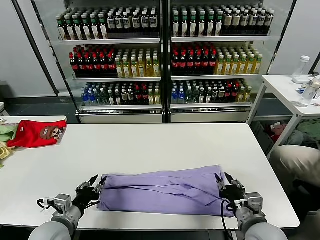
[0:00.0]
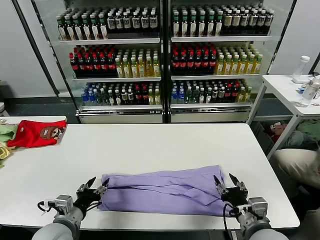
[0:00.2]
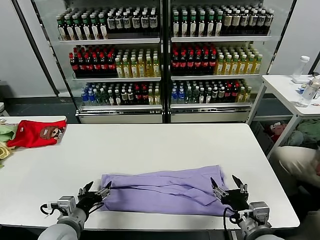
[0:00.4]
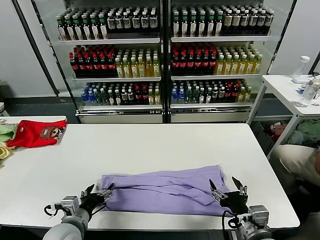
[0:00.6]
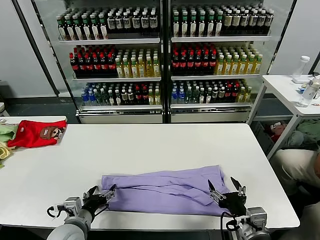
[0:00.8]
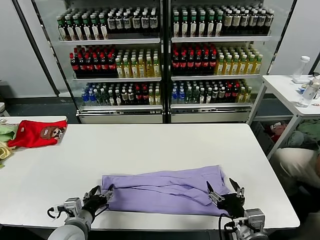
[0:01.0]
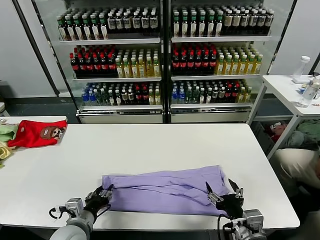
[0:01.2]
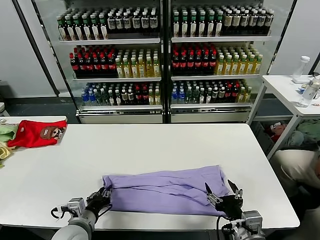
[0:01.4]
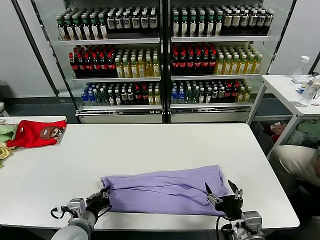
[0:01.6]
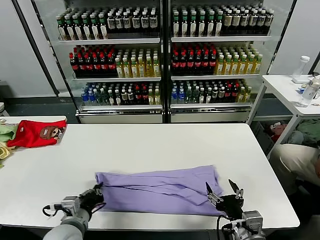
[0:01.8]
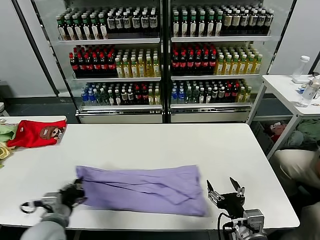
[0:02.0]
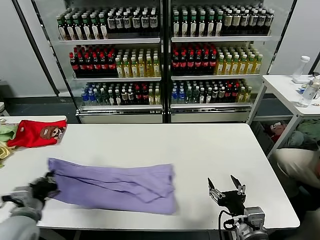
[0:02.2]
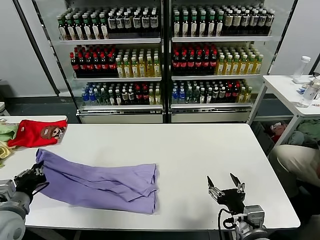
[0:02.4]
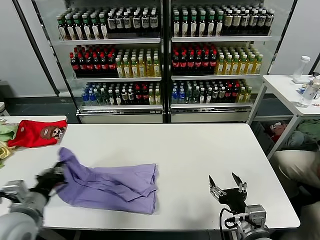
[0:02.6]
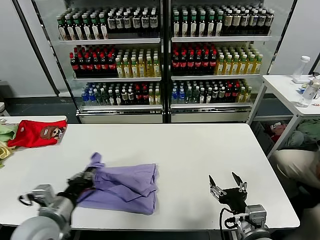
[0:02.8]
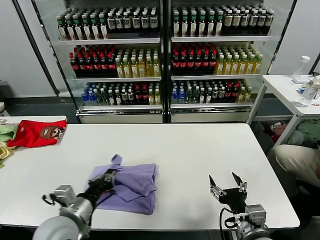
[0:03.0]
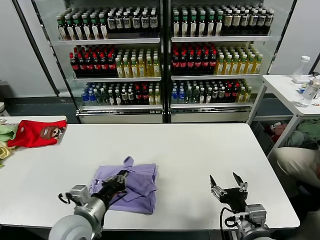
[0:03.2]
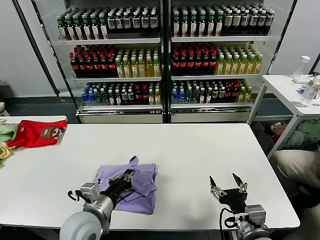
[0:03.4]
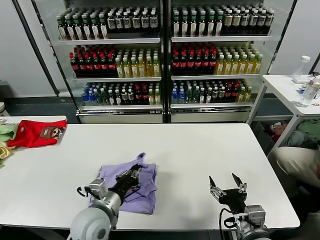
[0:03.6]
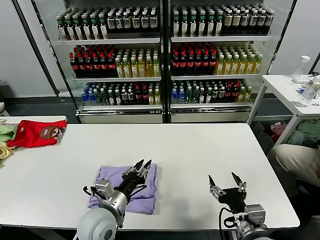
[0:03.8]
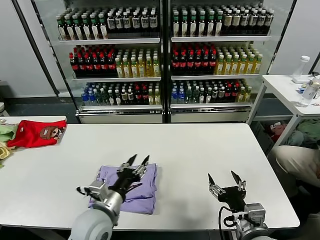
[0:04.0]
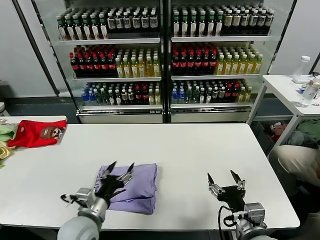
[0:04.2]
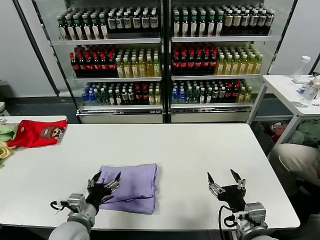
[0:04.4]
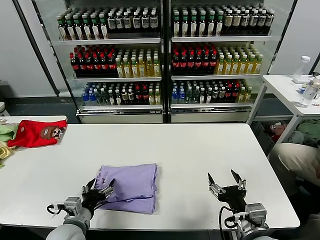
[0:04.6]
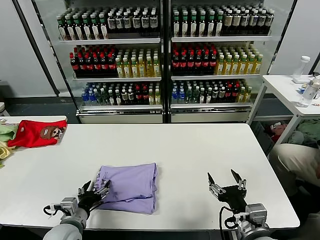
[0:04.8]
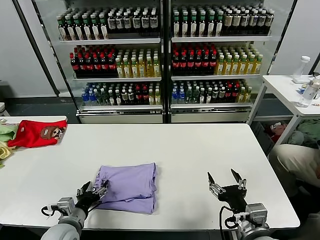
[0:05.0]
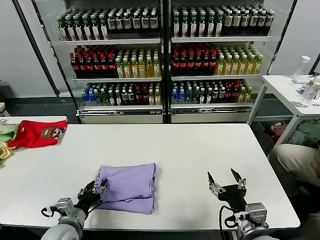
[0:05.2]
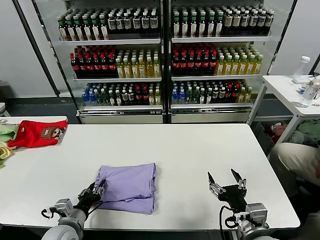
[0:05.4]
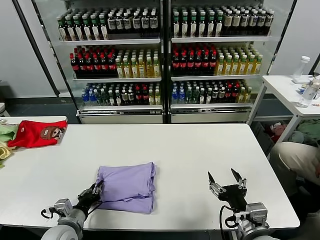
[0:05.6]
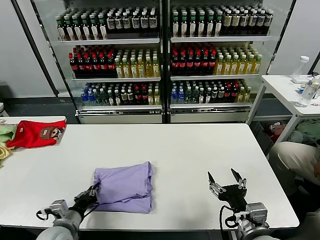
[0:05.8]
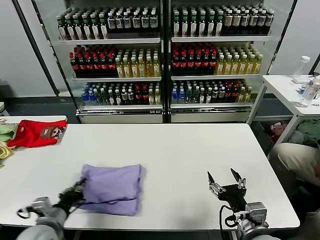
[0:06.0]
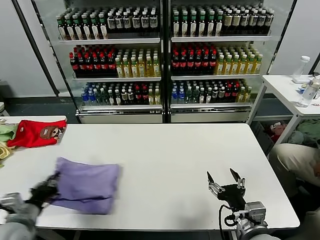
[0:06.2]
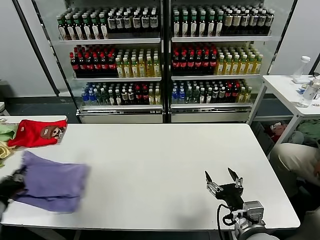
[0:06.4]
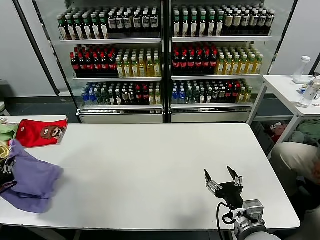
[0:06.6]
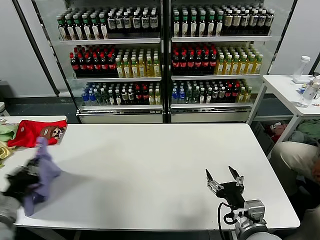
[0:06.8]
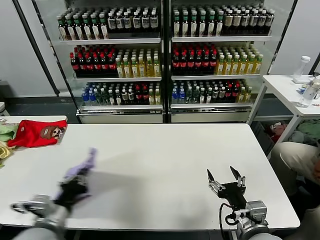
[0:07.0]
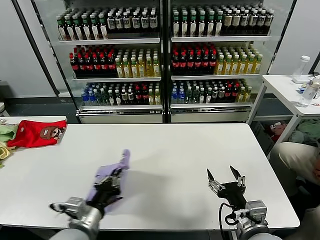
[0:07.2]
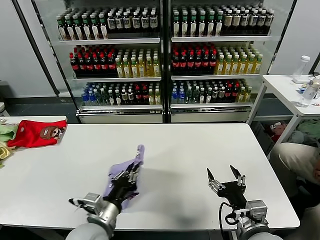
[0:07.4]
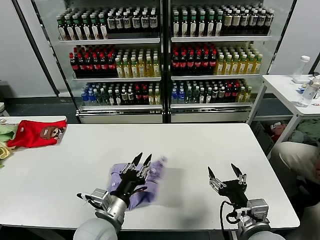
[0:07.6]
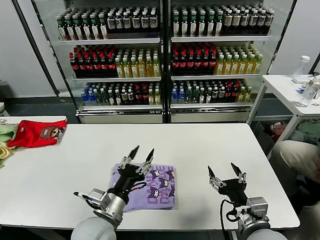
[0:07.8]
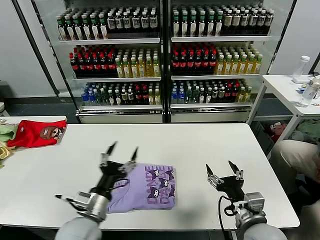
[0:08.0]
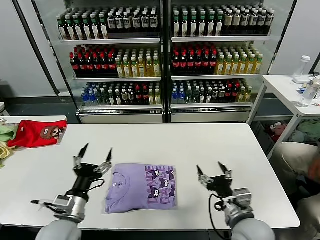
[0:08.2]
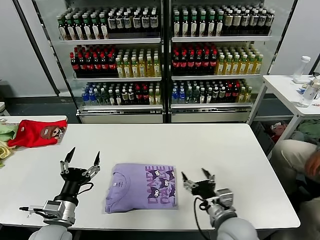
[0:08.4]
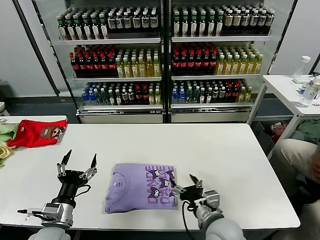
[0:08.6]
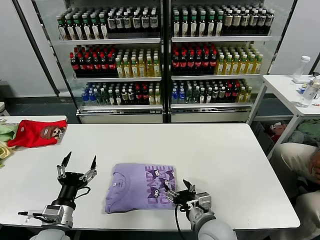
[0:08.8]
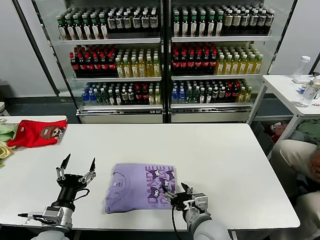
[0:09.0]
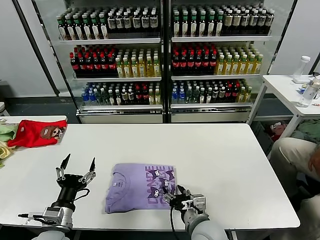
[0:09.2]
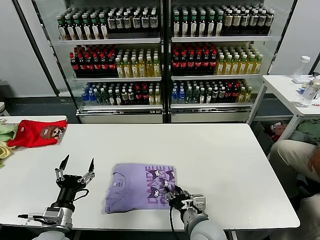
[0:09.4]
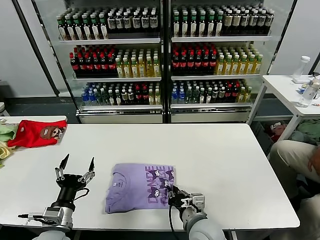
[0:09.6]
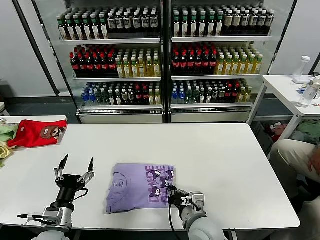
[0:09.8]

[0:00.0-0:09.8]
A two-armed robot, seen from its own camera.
Task of the whole recording: fold and organize the clothes.
Step, 0:00.4 to 0:01.6: use the left gripper to clamp the left edge of the fabric.
Step, 0:01.8 to 0:03.8: use the left gripper to drag the left edge of the fabric to the left and folds it over the right edge.
Step, 0:04.2 to 0:07.8: Flip the folded clothes over with left gripper.
0:00.0 to 0:01.4: The left gripper shifts about 5 cm to the right, and opens, then closes again; the right gripper ends up roughly 5 cm from where it was, and opens up.
0:01.4 to 0:02.8: The left gripper is displaced upward by approximately 10 cm.
0:02.8 to 0:04.2: The left gripper heads to the right and downward, covering approximately 10 cm, and opens.
0:04.2 to 0:05.6: The left gripper heads to the left and downward, covering some 10 cm, and closes its fingers.
0:05.6 to 0:07.0: The left gripper moves upward, some 15 cm.
0:07.0 to 0:08.4: The right gripper ends up about 5 cm from where it was. The left gripper is displaced downward by some 5 cm, reaches some 15 cm to the right, then returns, and opens its fingers.
0:08.4 to 0:09.8: The right gripper shifts approximately 10 cm to the left, and closes its fingers.

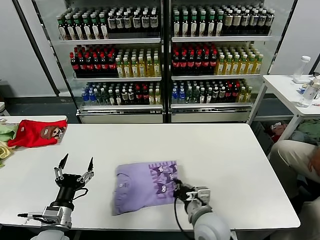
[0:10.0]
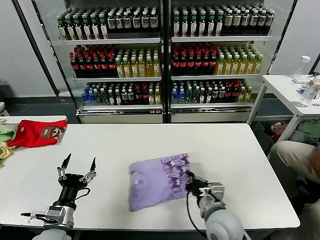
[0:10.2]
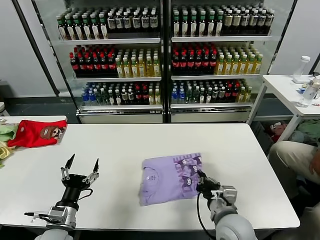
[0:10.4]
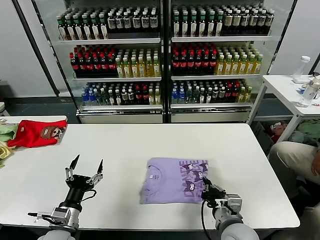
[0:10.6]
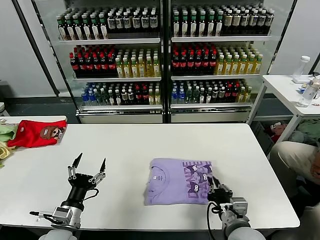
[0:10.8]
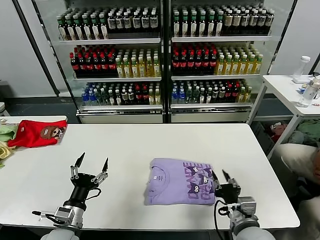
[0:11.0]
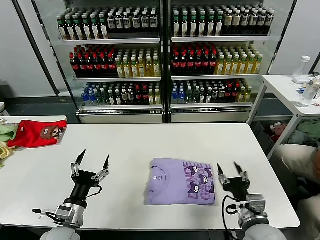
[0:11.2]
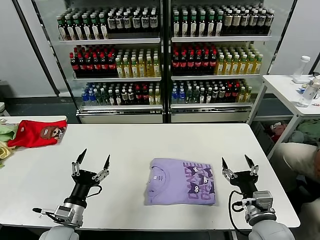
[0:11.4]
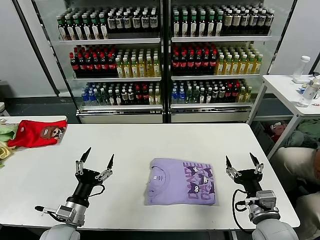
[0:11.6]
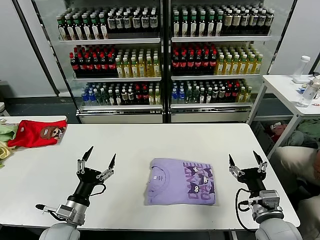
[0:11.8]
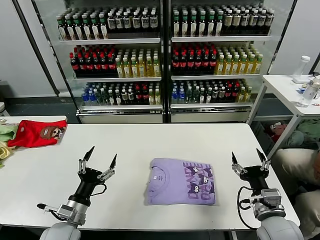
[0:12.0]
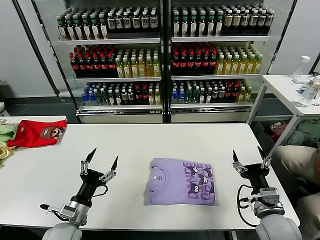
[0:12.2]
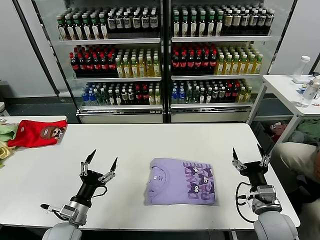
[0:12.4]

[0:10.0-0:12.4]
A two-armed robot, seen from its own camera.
Task of the whole recording: fold and organize the clothes.
0:10.0 to 0:11.2: The right gripper heads to the right, covering some 10 cm, and opens its fingers.
0:11.2 to 0:12.4: The right gripper is displaced to the right by about 5 cm.

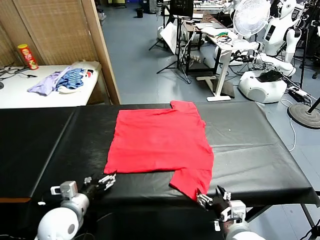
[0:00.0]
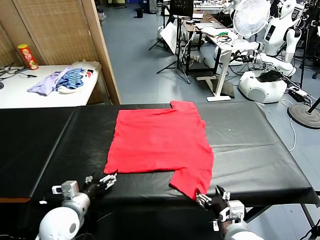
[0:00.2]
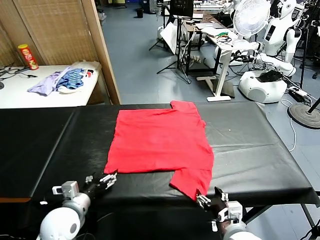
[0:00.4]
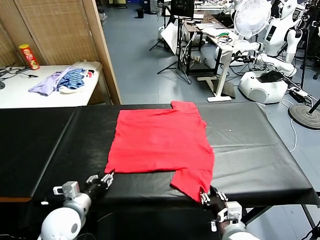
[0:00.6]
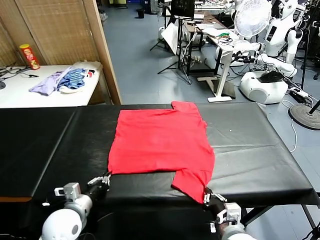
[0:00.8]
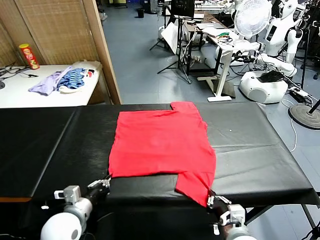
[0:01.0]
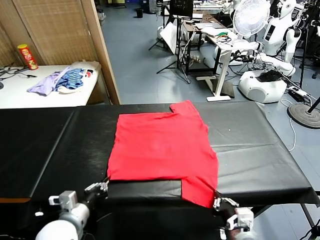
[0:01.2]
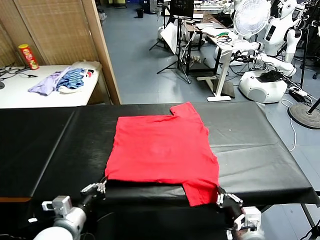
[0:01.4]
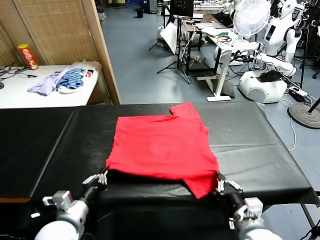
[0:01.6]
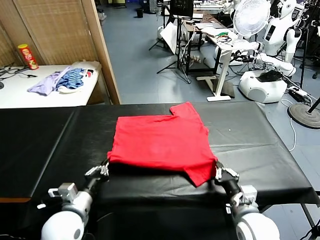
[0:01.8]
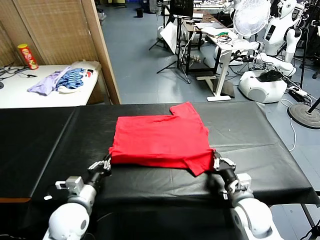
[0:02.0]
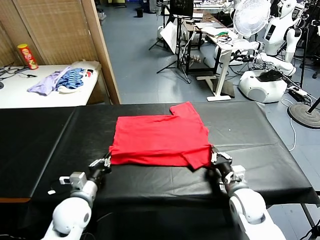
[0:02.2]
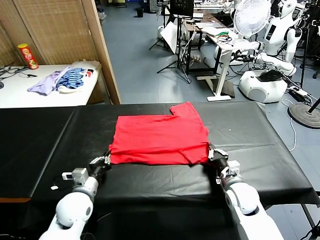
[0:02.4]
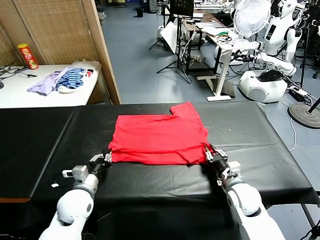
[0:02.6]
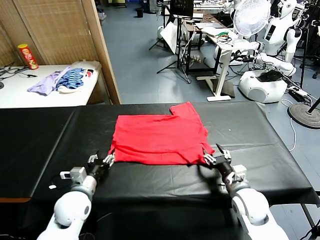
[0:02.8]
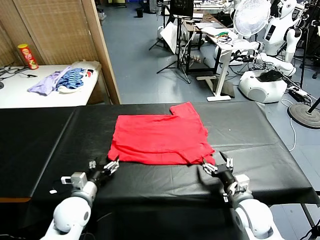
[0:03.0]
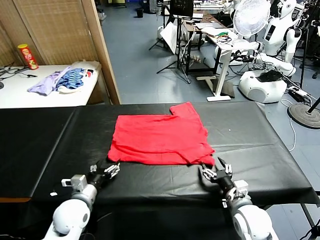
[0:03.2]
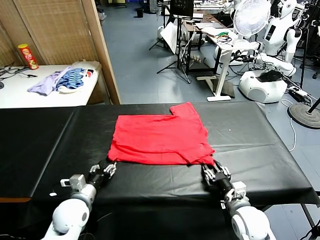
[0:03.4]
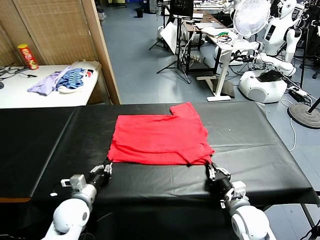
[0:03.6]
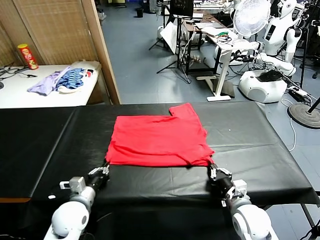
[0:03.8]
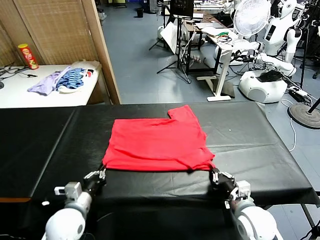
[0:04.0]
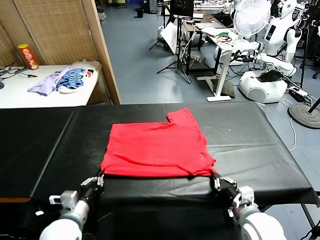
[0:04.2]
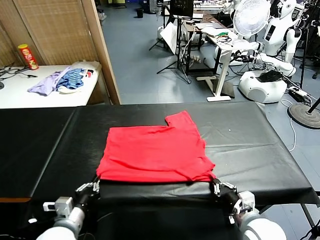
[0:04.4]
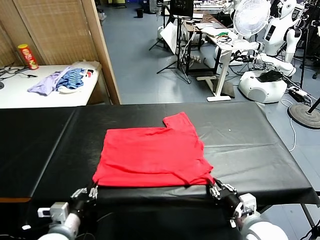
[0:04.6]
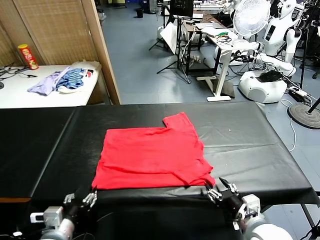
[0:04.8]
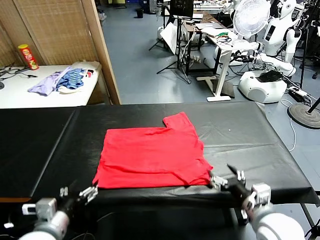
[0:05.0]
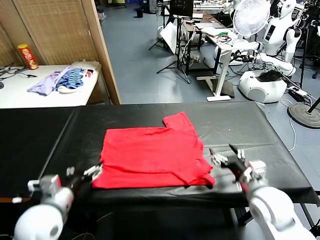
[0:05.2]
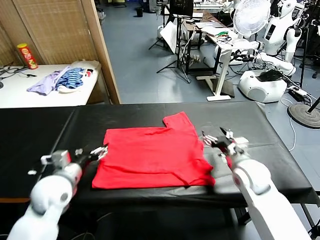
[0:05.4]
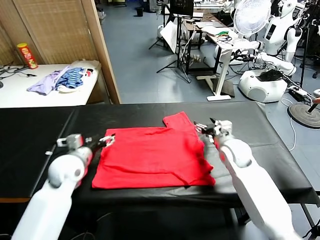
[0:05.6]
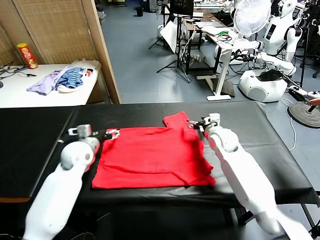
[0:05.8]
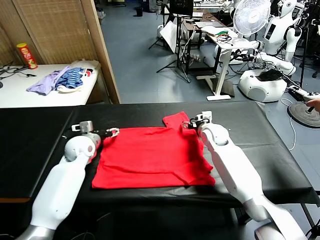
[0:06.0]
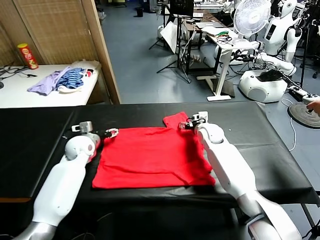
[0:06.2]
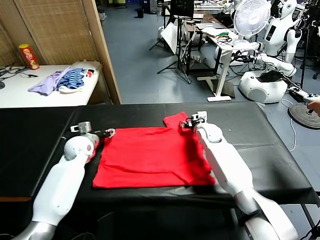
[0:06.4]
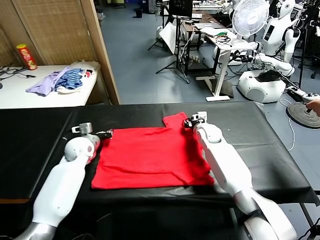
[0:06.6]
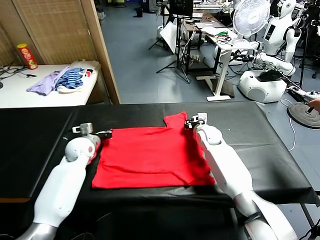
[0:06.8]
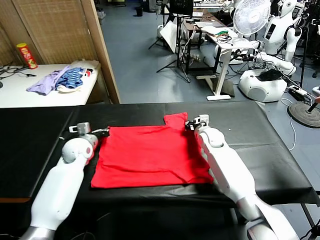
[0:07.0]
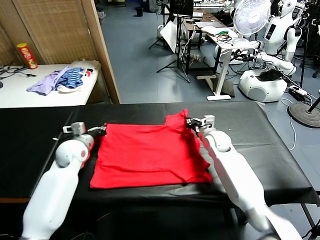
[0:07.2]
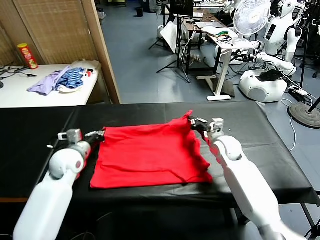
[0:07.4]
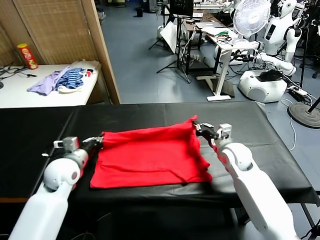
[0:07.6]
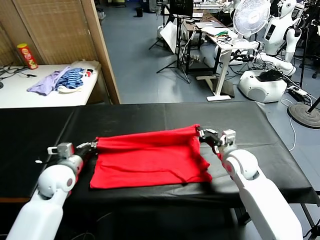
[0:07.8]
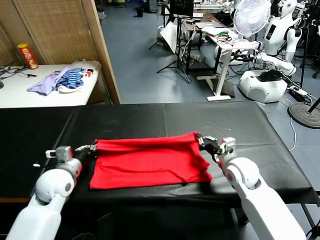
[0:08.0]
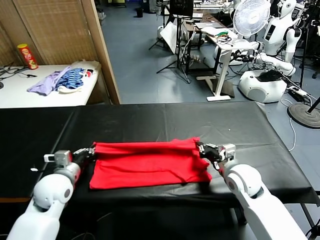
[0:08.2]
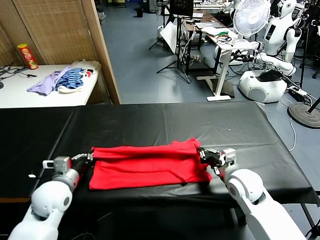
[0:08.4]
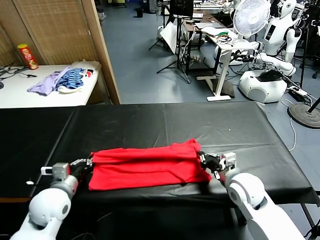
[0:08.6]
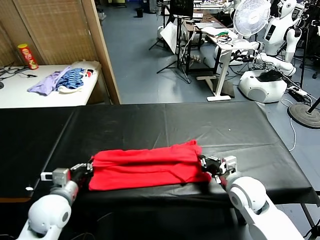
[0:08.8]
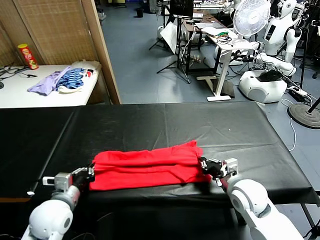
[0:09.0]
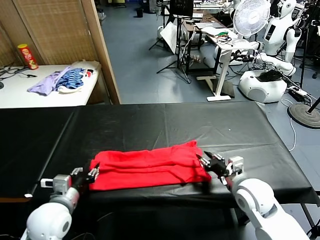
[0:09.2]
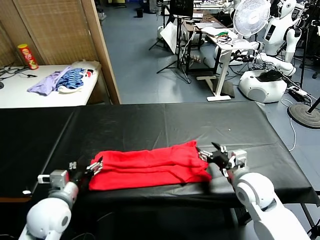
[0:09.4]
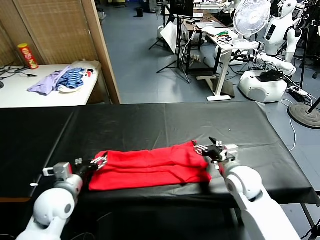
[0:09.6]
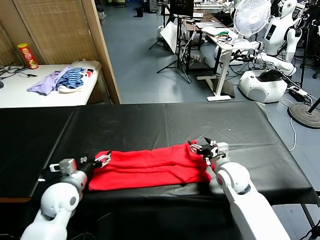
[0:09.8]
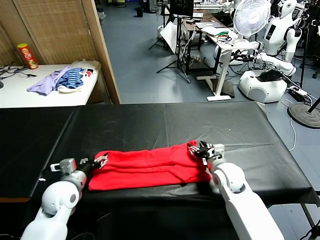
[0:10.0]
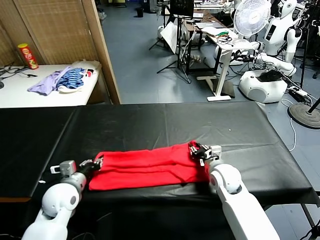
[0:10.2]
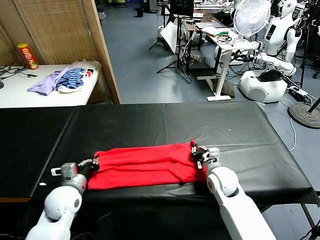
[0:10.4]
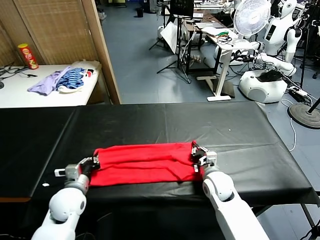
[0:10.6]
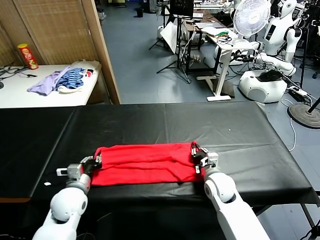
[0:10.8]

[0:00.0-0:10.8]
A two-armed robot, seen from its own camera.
Task of the whole recording: fold and organize the clothes.
Step, 0:00.0 to 0:01.2: use both grippers simultaneously to clamp the lower edge of the clothing fabric.
Step, 0:01.4 to 0:02.8: use both grippers to drag the lower edge of the fabric forward and fold it over the upper edge.
Step, 0:03.0 to 0:04.8: Drag the clothes downward with both gripper.
Step, 0:05.0 to 0:07.0: use both grippers simultaneously to clamp the upper edge of the clothing fabric.
Step, 0:07.2 to 0:09.2: use both grippers to drag the upper edge of the fabric backward and fold it over the lower edge.
0:01.6 to 0:03.0: The right gripper moves some 10 cm forward and comes back, and opens its fingers. The left gripper shifts roughly 10 cm forward and downward, and opens.
0:03.0 to 0:04.6: The right gripper travels upward and backward by approximately 10 cm, and closes, then opens again. Meanwhile the left gripper heads backward, covering roughly 10 cm, and closes.
0:04.6 to 0:06.2: The grippers both shift forward by roughly 35 cm. The left gripper opens.
0:06.2 to 0:07.8: Both grippers travel together backward, about 15 cm. The right gripper closes, while the left gripper closes up.
0:07.8 to 0:09.2: The two grippers go approximately 10 cm backward. The left gripper opens up, while the right gripper opens.
0:09.2 to 0:10.8: The right gripper travels downward, to the left and forward by some 10 cm, and closes its fingers; the left gripper moves forward and downward, approximately 10 cm, and opens, then closes again.
